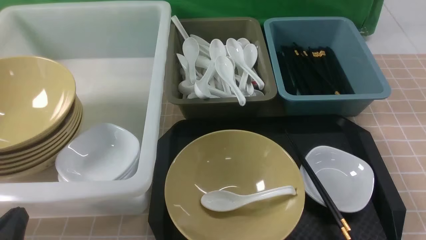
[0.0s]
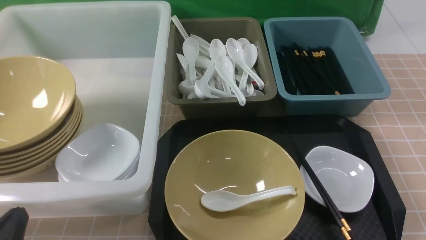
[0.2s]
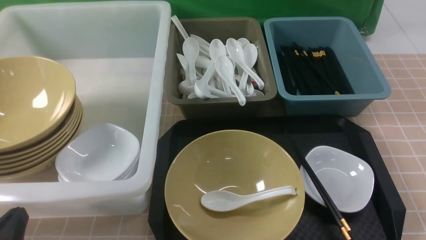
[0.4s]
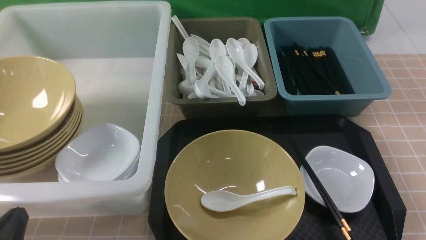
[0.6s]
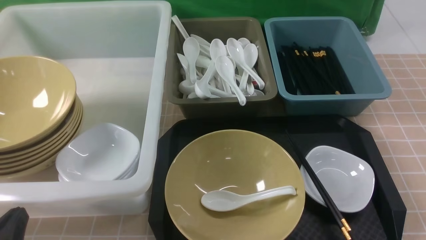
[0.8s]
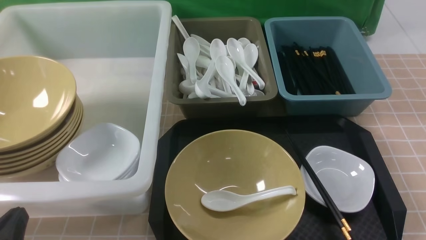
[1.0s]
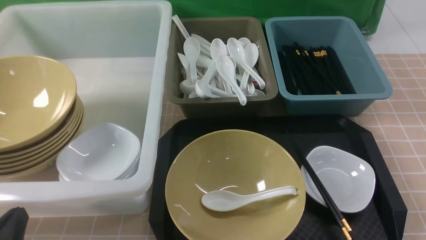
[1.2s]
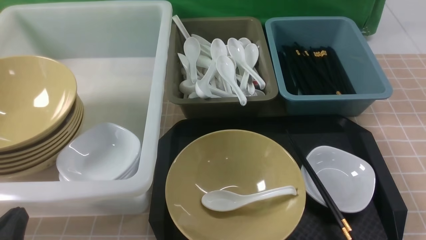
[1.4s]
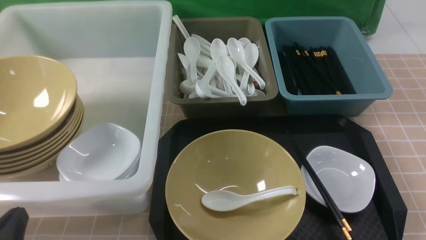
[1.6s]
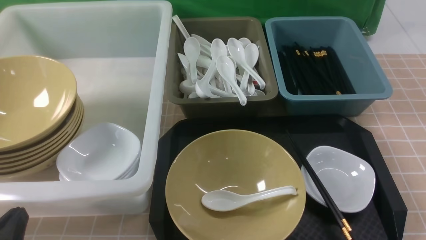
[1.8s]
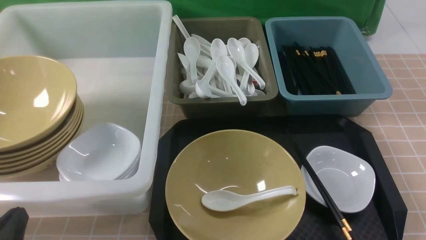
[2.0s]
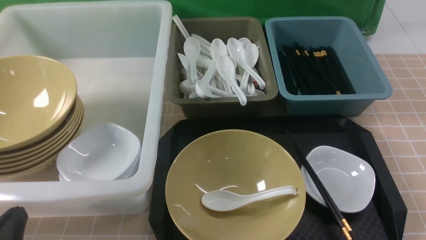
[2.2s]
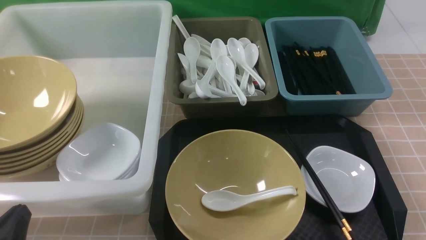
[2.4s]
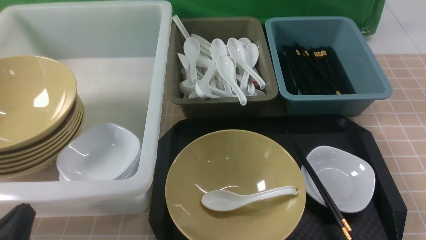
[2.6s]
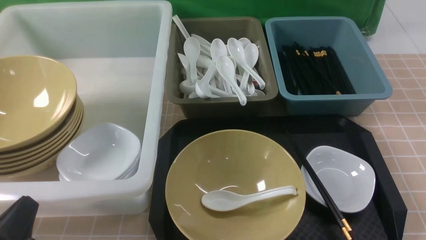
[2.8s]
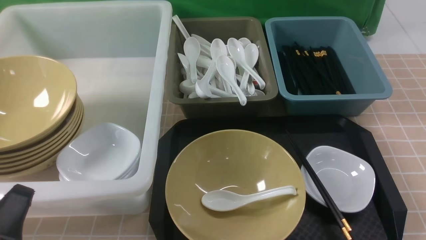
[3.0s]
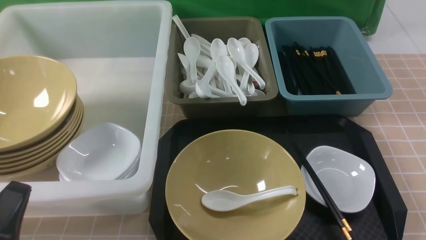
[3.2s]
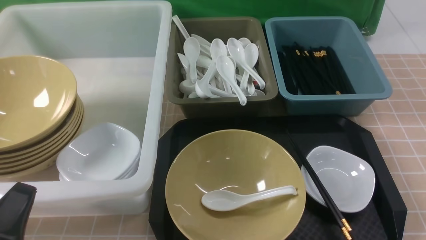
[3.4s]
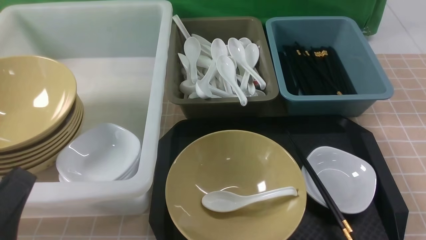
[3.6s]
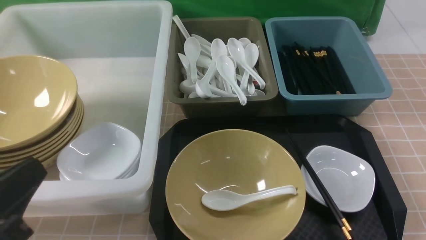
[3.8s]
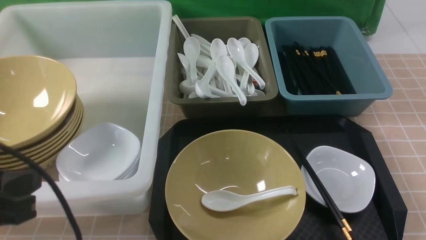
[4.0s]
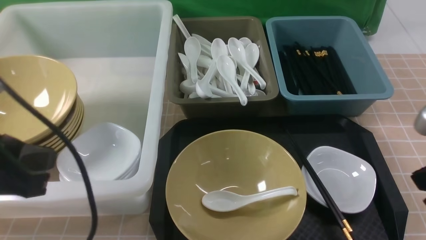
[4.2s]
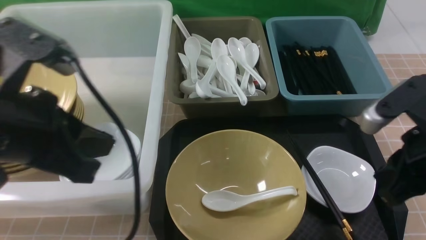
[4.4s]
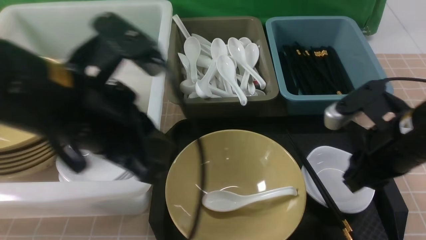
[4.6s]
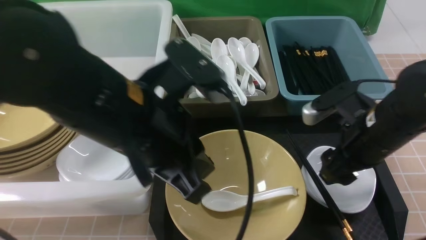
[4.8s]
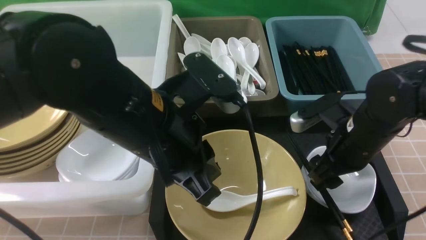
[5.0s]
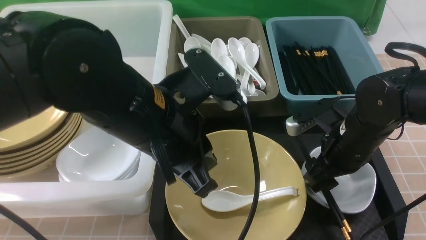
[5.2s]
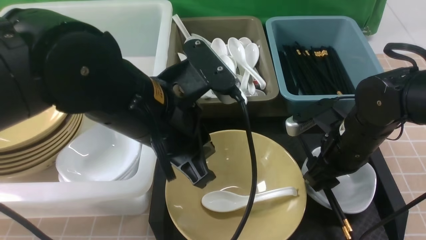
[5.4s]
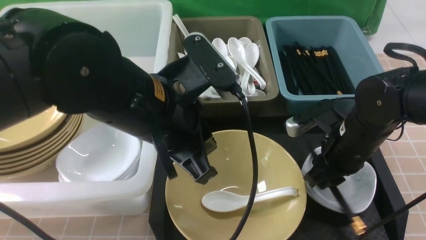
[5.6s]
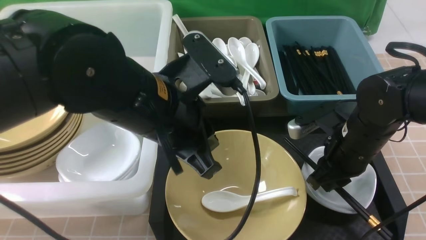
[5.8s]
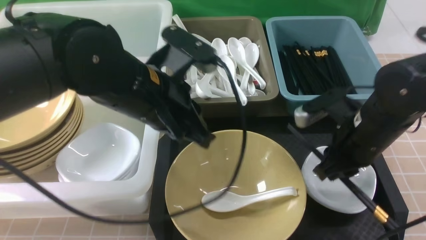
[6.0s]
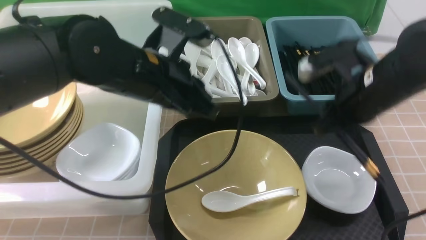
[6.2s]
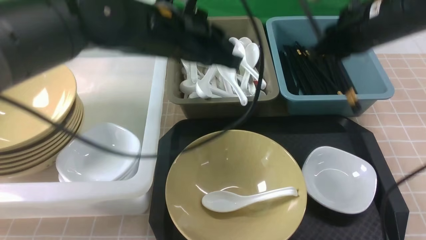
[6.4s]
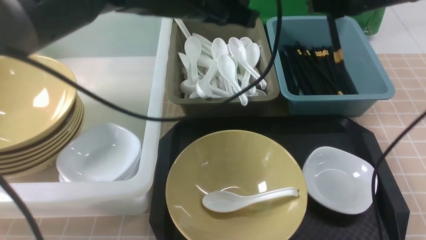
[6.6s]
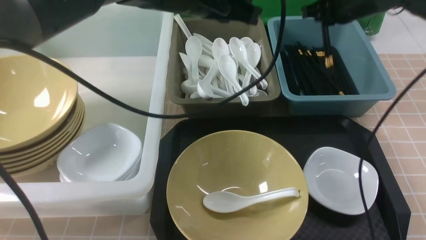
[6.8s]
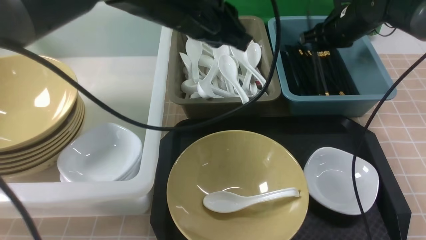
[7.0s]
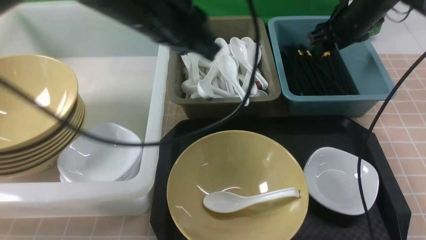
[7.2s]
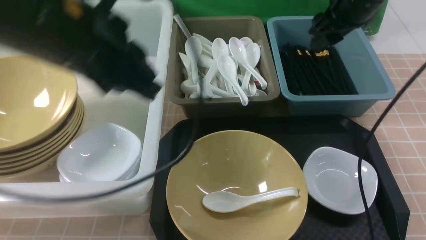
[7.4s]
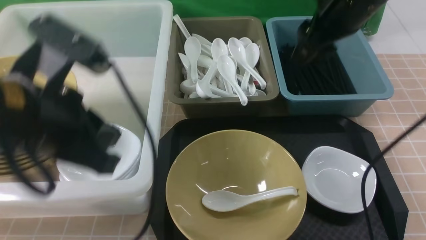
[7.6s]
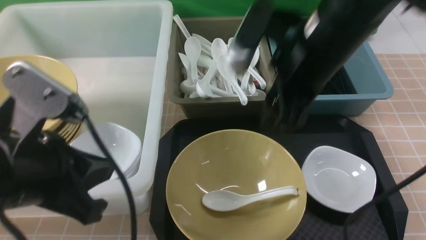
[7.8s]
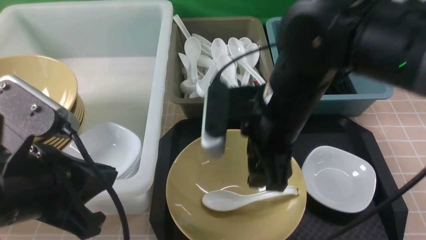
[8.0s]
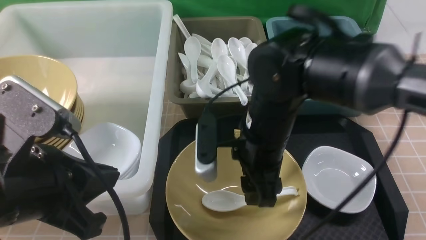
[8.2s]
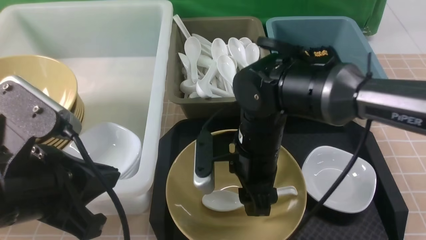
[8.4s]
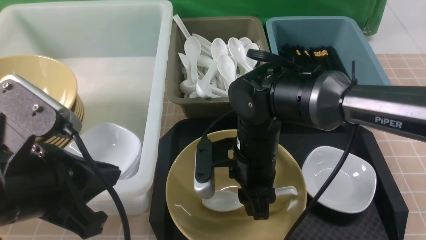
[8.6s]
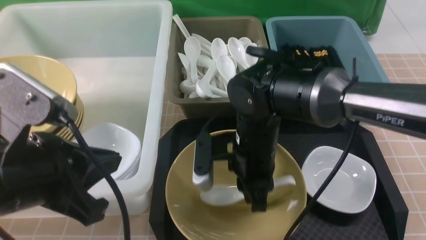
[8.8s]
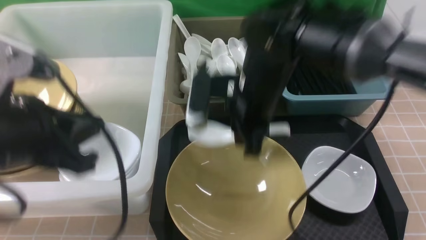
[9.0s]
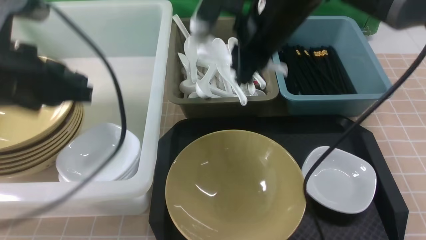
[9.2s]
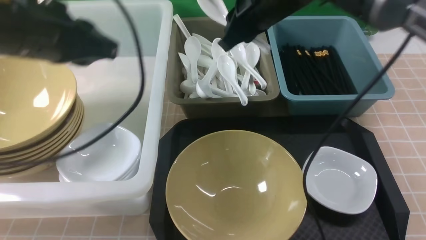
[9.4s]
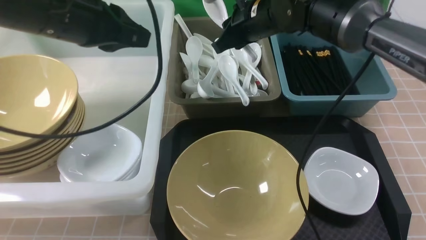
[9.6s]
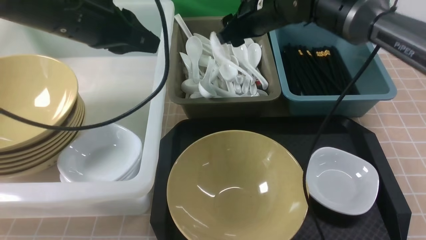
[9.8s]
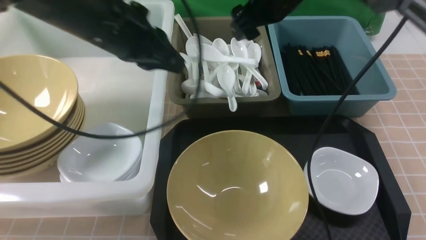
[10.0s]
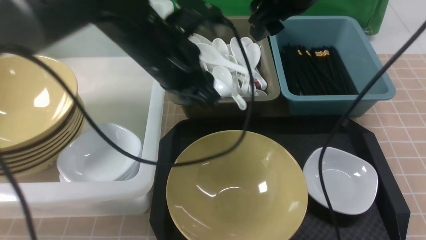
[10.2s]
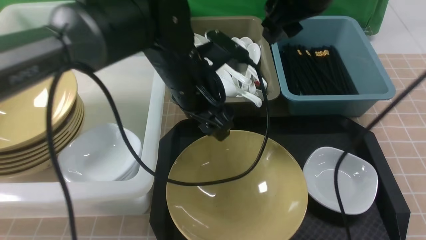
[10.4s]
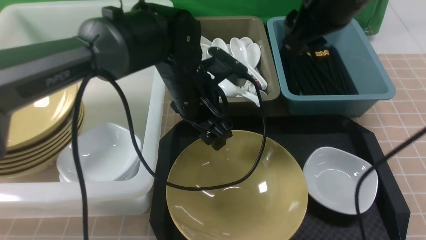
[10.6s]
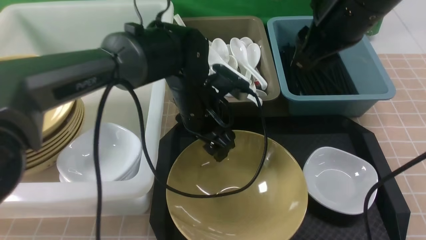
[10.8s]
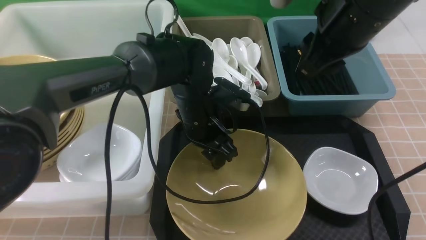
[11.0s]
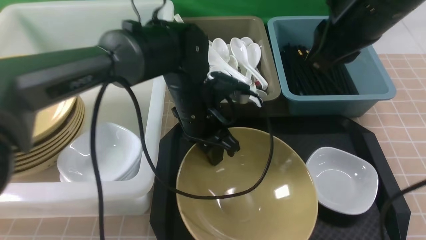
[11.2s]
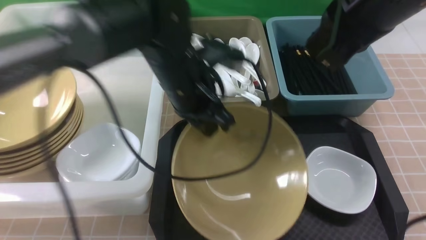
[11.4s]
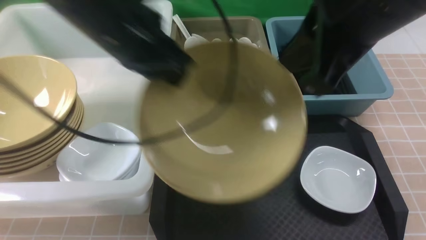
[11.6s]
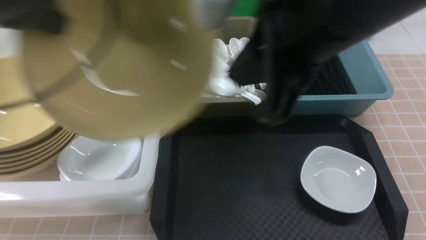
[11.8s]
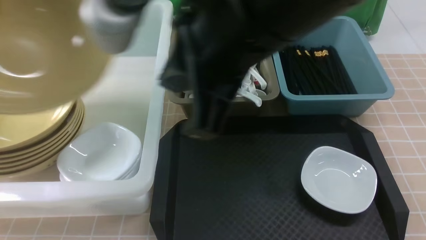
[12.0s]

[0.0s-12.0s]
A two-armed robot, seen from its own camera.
Task of the whole recording: on brown table put chopsticks spoon bowls plates into blue grey white boxes.
Step, 0.0s to 5.8s: use the right arm to grab the chopsticks.
Step, 6.0s to 7.2s: use the right arm to put the chopsticks into the small storage box on the right.
Step, 7.4s to 8.8s: use the right arm to grab the soup spoon in the middle.
Step, 9.0s to 9.8s: use the right arm to put the soup spoon into the small storage box in the middle.
Step, 10.0s to 11.2s: use the left arm to grab the yellow noodle bowl on the left.
0.0s to 1.6s: Both grippers stay about where they are.
3.0s to 4.4s: The right gripper goes approximately 20 cm forward, upward and to the left. Meanwhile the left gripper is displaced upward, forward and to the right by approximately 20 cm.
4.4s to 6.0s: The left gripper heads to the right and forward, covering about 15 cm; the right gripper shifts roughly 10 cm forward and downward, and opens, then closes once more.
6.0s to 7.6s: The right gripper shifts roughly 15 cm upward, reaches approximately 20 cm forward, then returns, and opens its fingers, while the left gripper goes approximately 10 cm to the left and backward.
7.6s to 9.0s: The right gripper travels to the left and downward by some 10 cm, and closes.
9.0s to 10.4s: The left gripper goes approximately 25 cm forward, to the right and downward, and opens up. The right gripper moves upward and to the right, roughly 15 cm, travels forward and back again, some 10 cm each way, and opens its fingers.
10.4s to 12.0s: The left gripper shifts about 35 cm to the left and upward, and closes. The right gripper heads backward and to the left, covering some 20 cm, and closes.

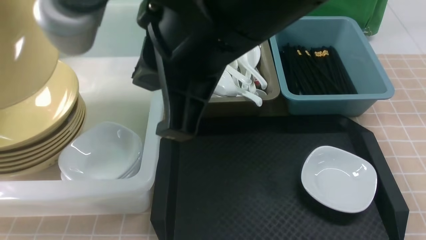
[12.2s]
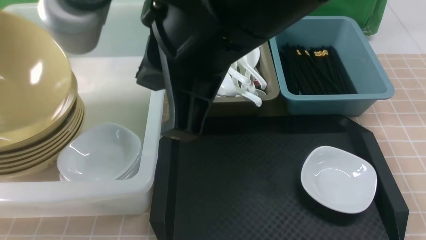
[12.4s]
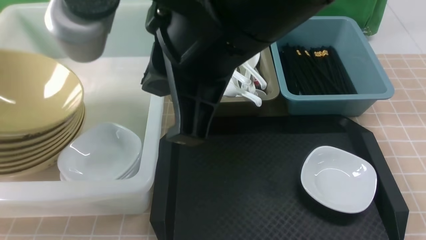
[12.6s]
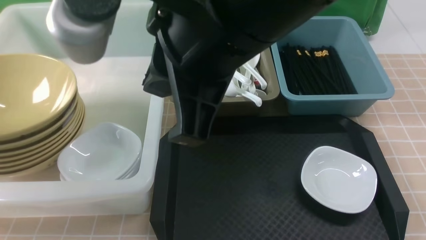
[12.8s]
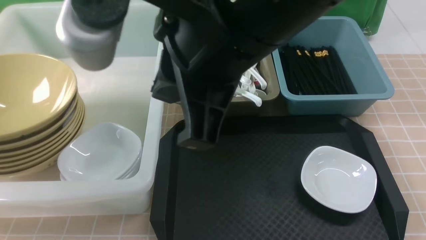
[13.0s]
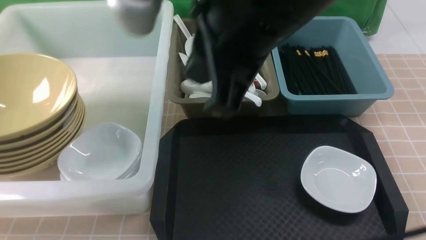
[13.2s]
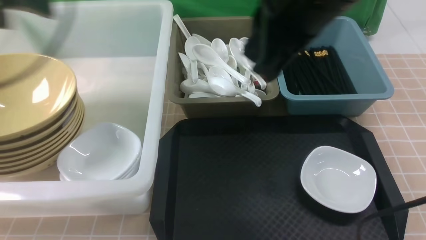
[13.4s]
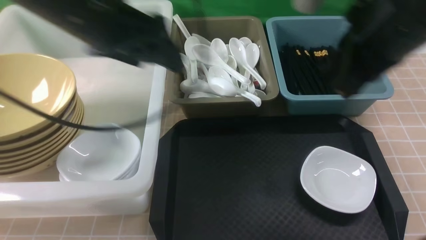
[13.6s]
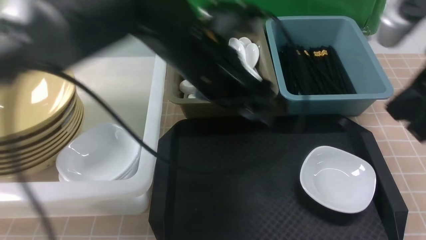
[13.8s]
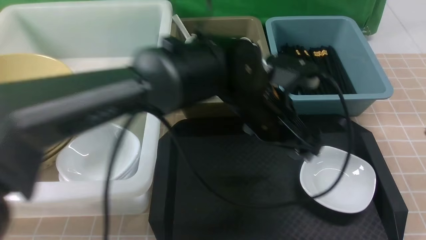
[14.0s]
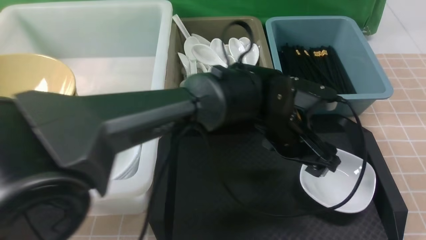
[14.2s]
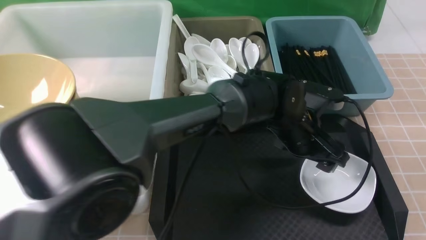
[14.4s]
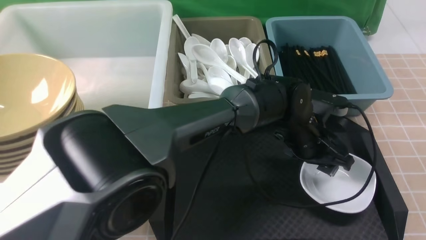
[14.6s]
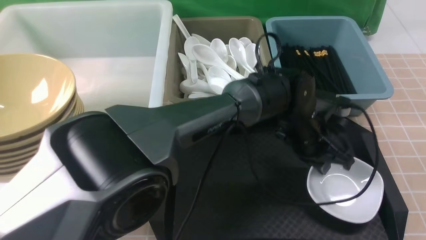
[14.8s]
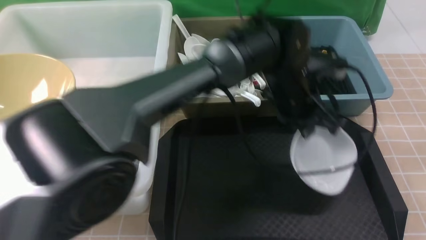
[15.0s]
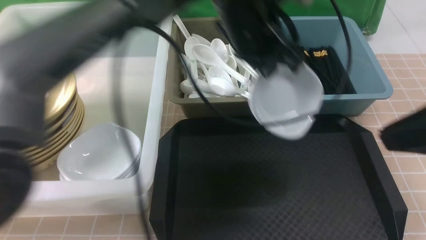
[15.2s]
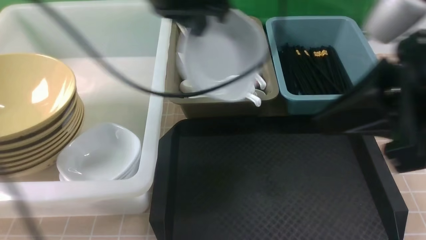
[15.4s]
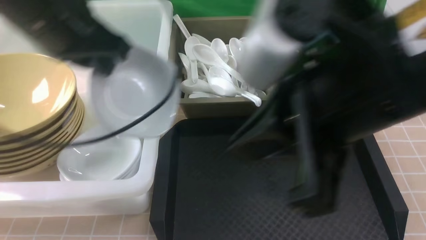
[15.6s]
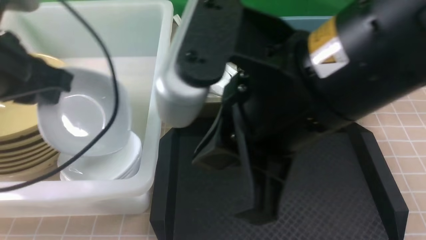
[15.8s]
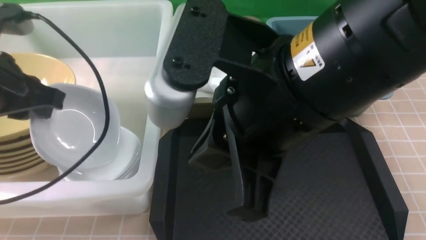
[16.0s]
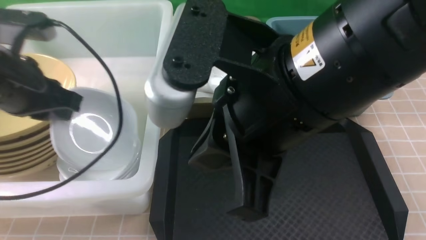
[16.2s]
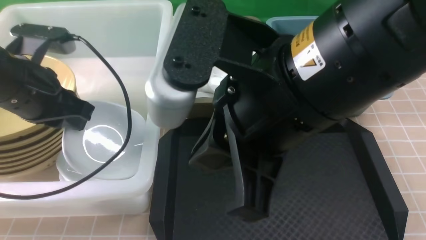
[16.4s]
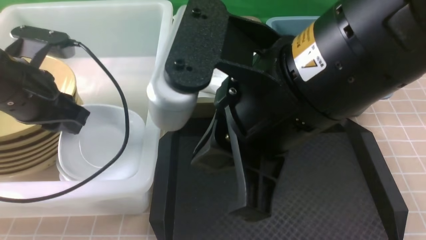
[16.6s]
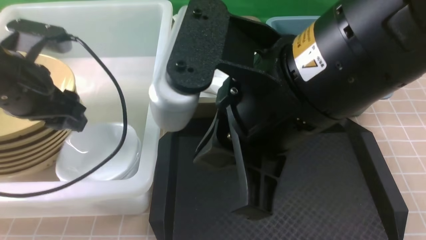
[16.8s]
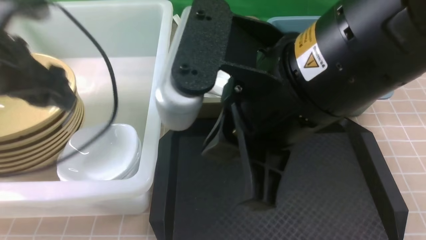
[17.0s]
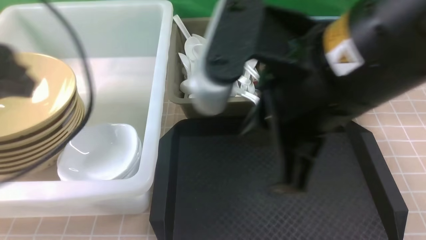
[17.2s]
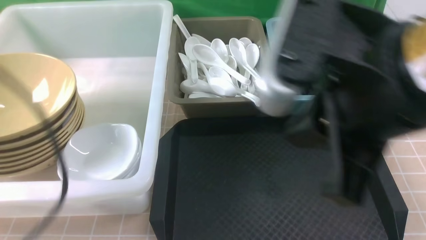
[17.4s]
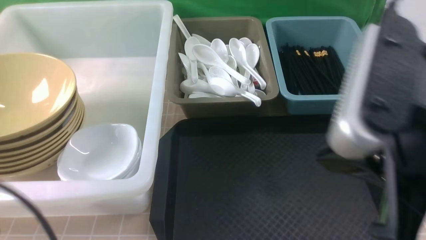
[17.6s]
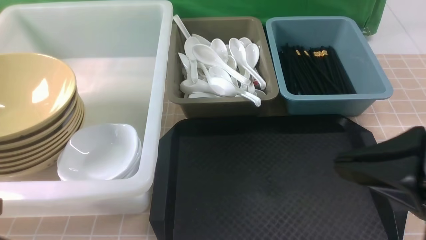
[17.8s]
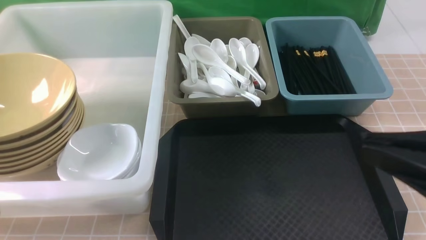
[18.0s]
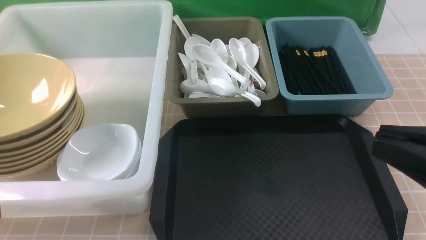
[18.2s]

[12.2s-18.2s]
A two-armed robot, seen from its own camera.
Task of the whole recording: on brown table put chopsticks spoon bowls plates into blue grey white boxes.
Step, 13.0s to 14.8s: use the left arm to grab the plate.
Step, 15.0s to 16.8s: use the left arm to put the plate into the large storage box on the left.
12.2s to 13.8s: The left gripper heads to the right, covering about 35 cm, and opens up. Meanwhile the right gripper moves to the right, some 20 cm.
13.8s to 15.2s: The left gripper goes downward and returns, roughly 15 cm each way, and closes.
15.2s to 16.6s: The left gripper is displaced to the left by about 25 cm, and opens up; the right gripper goes some 15 cm to the left.
16.6s to 18.2s: The left gripper moves backward, some 25 cm, and closes up. Meanwhile the right gripper shifts approximately 20 cm to the right and backward.
